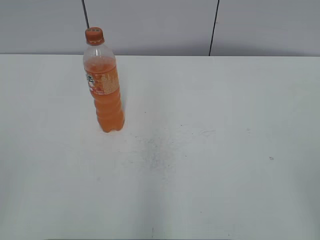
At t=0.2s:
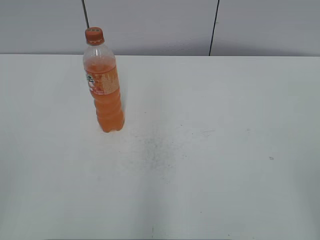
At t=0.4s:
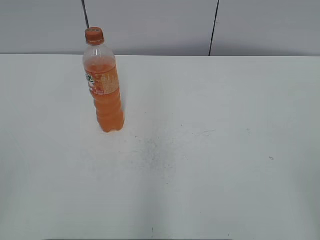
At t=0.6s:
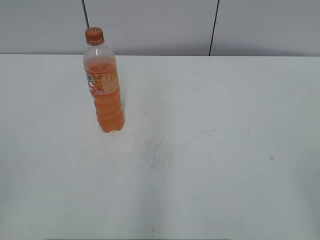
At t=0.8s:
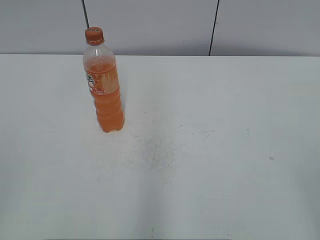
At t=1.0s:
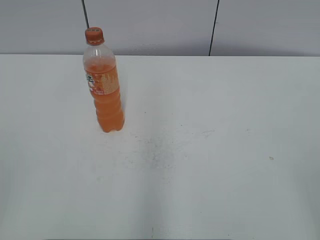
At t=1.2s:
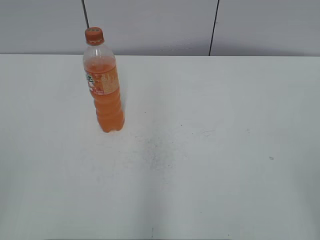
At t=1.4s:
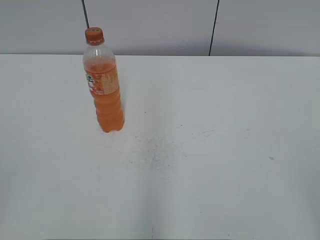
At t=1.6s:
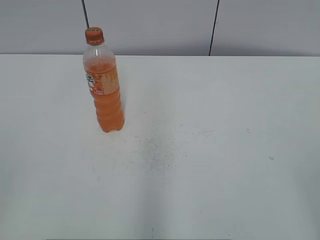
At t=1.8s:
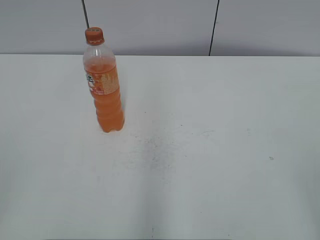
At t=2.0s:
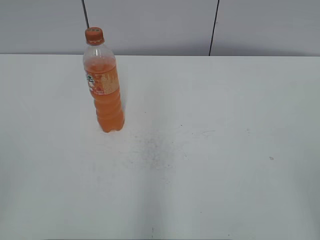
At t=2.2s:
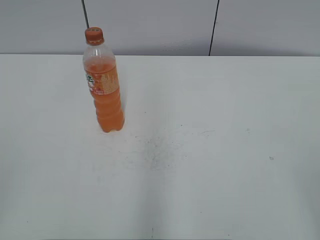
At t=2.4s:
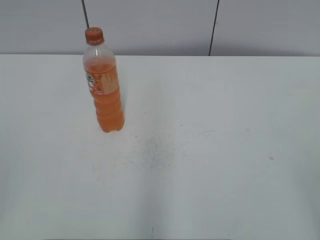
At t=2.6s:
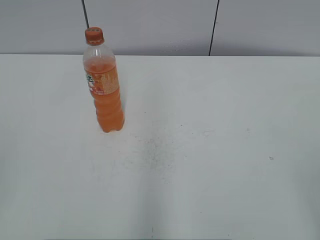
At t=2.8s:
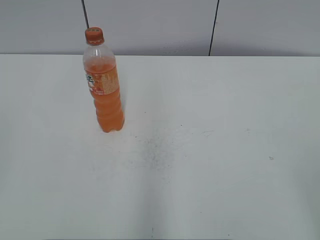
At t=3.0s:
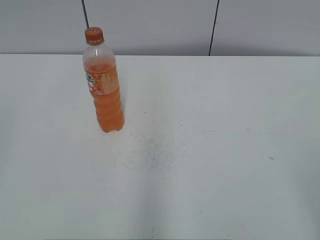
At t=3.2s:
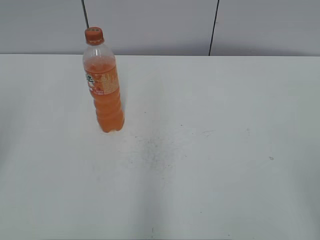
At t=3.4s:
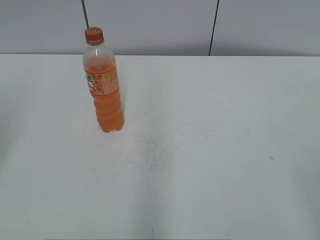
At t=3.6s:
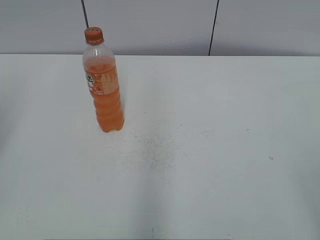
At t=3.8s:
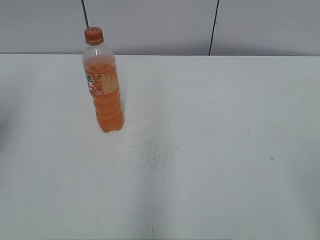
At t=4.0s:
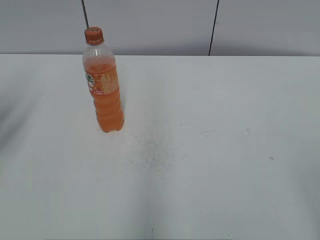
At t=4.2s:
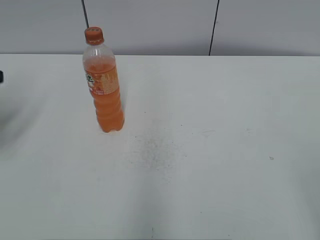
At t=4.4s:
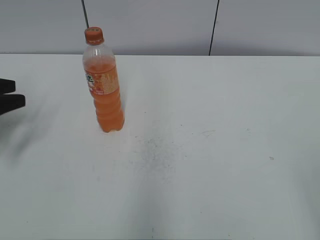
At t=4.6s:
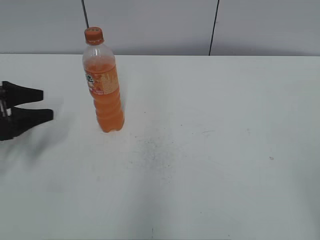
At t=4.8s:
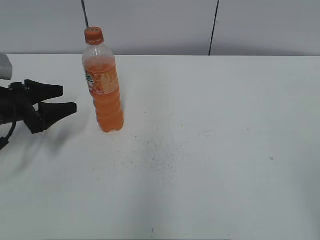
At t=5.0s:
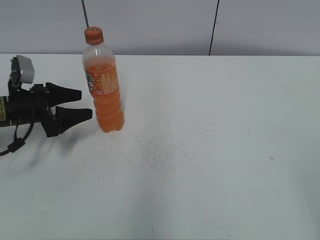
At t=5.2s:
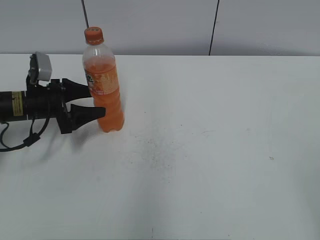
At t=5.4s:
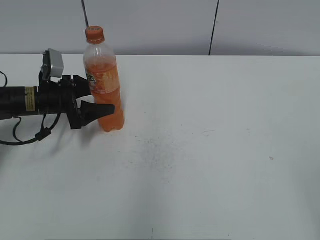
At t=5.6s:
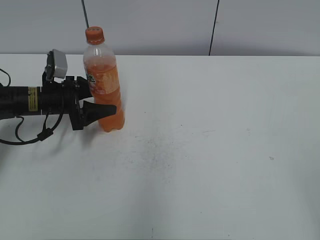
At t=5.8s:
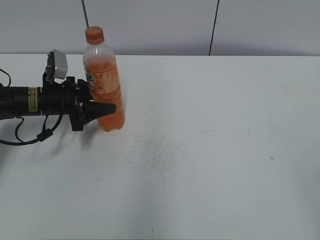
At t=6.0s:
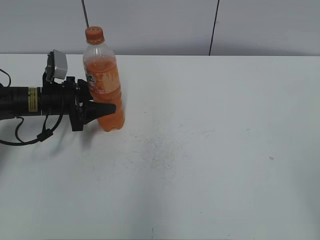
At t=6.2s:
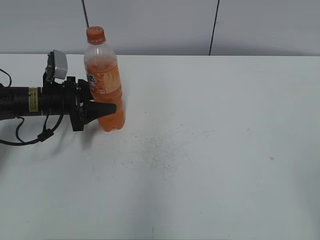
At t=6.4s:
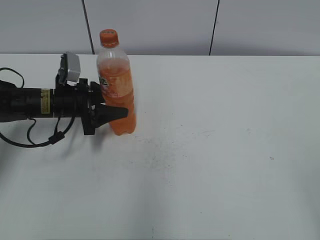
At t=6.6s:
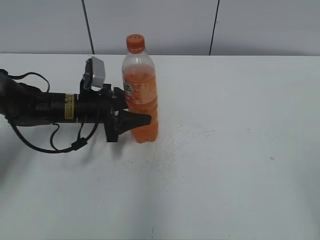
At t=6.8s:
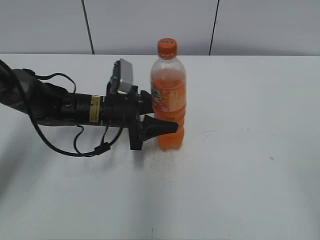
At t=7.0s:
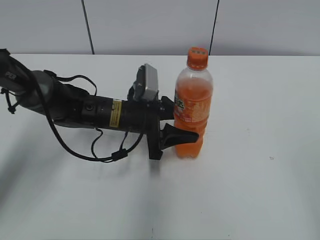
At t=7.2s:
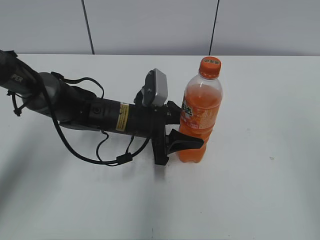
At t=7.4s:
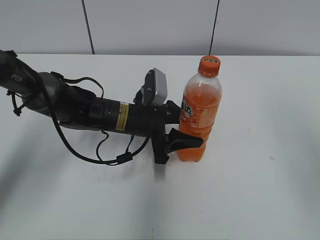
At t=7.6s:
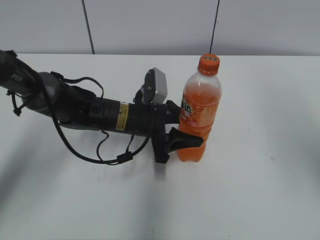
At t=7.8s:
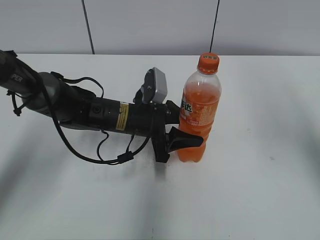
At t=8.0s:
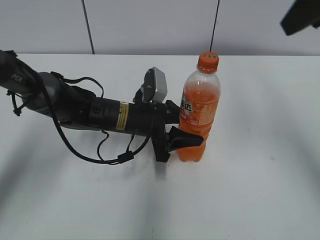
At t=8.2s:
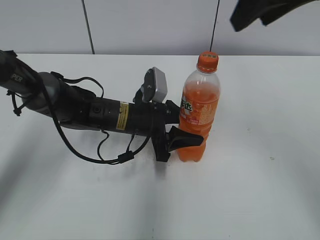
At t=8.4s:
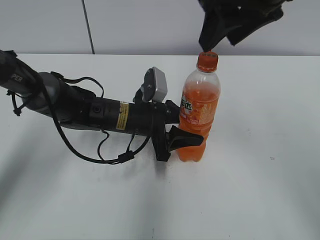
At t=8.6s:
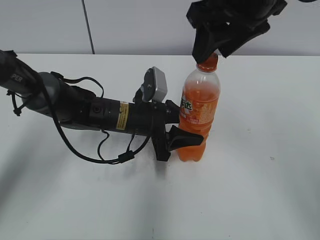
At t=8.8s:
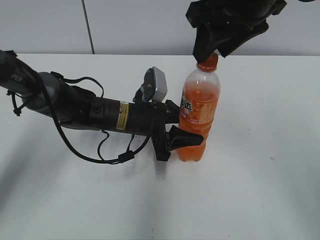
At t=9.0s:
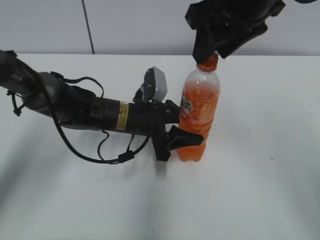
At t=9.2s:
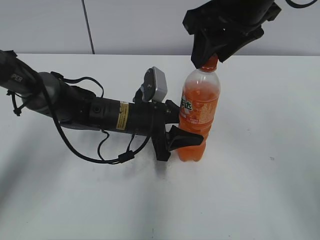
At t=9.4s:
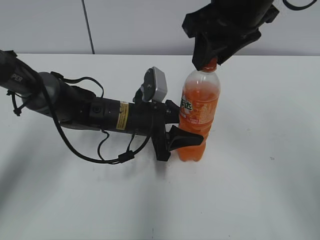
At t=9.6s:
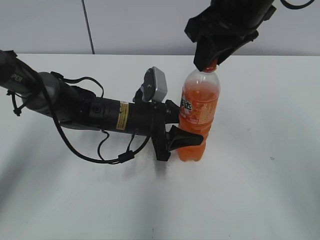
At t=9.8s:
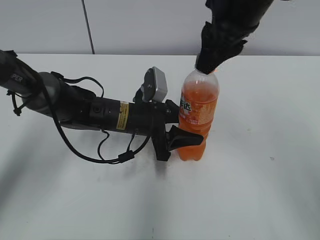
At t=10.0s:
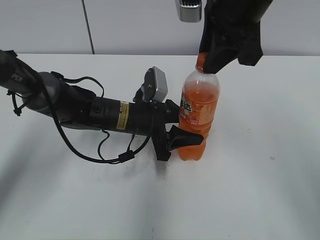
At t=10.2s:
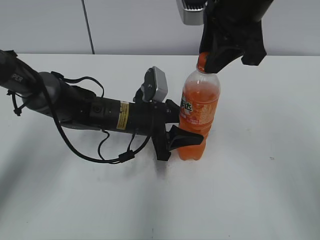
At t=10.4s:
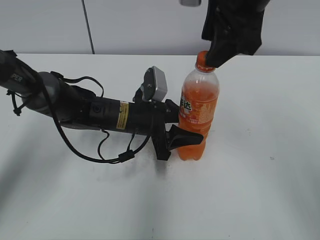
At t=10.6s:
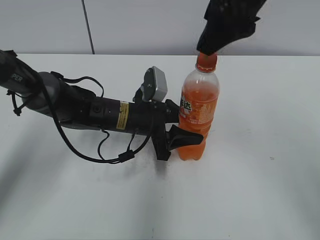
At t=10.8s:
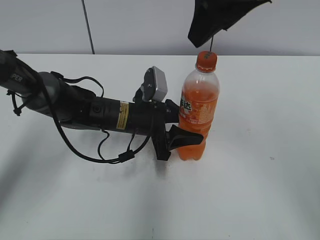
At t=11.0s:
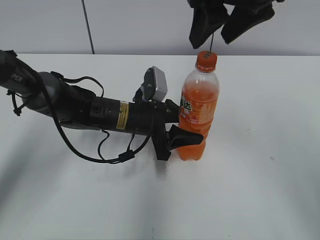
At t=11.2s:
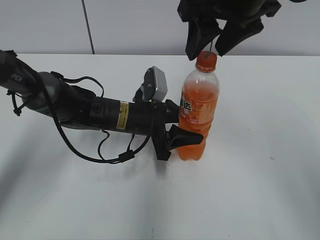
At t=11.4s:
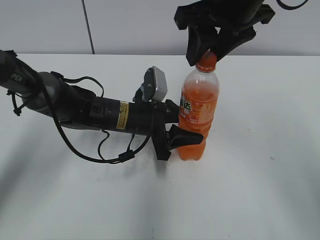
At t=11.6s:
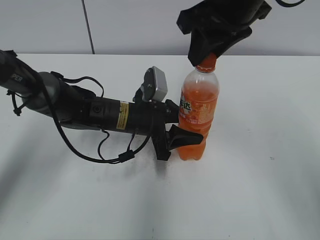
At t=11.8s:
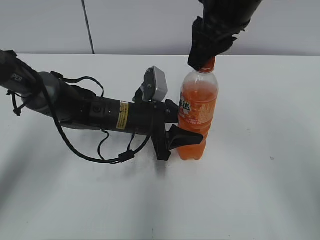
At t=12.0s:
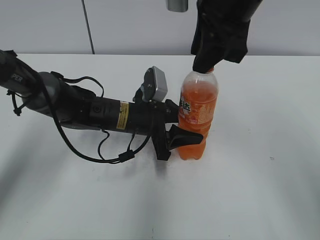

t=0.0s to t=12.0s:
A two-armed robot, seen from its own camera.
Step, t=0.0s to t=5.6s: Grab the Mirinda with the left hand.
Step, t=5.8s to t=7.0s: Move the Mirinda from left to right.
t=3.0s to t=4.4s: The left gripper is displaced forward and downward by about 30 cm, and opens its fingers.
t=4.4s to t=6.0s: The left gripper goes about 20 cm to the right, forward and downward, and opens and closes again.
t=6.0s to t=7.6s: The left gripper travels to the right by about 20 cm. Meanwhile the right gripper moves forward and upward, approximately 20 cm, and closes up.
t=7.6s to t=9.0s: The right gripper heads to the left and forward, covering about 20 cm.
t=9.0s to t=10.4s: The right gripper closes and opens again.
t=10.4s to t=12.0s: The right gripper closes.

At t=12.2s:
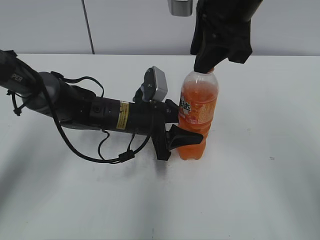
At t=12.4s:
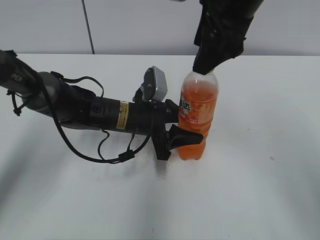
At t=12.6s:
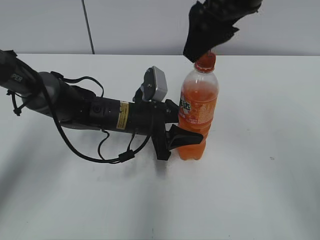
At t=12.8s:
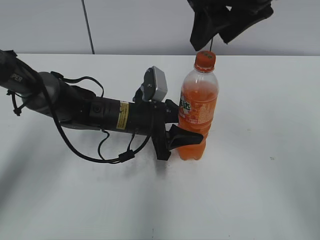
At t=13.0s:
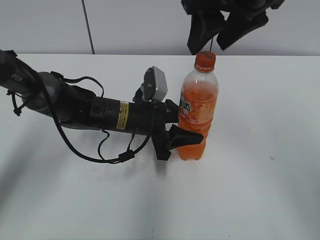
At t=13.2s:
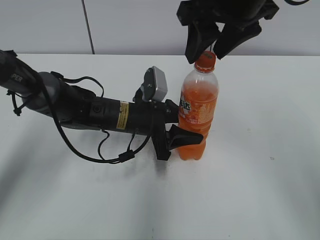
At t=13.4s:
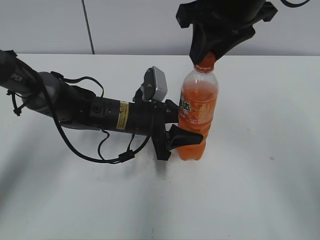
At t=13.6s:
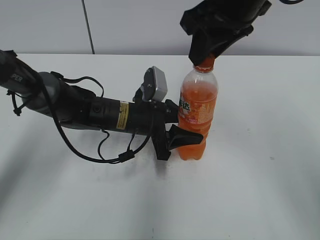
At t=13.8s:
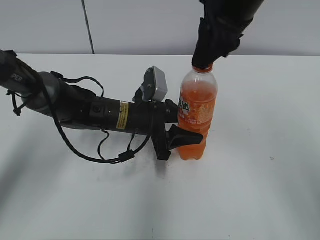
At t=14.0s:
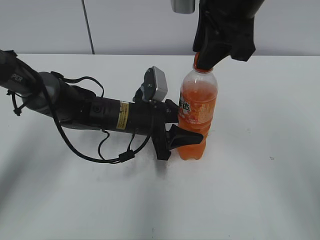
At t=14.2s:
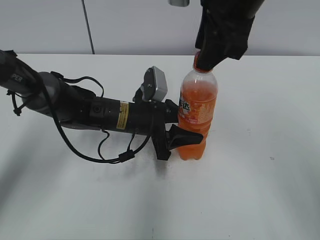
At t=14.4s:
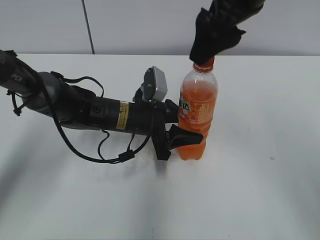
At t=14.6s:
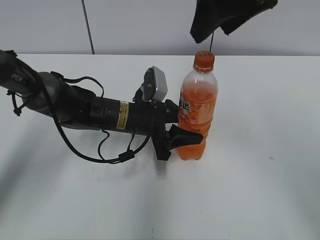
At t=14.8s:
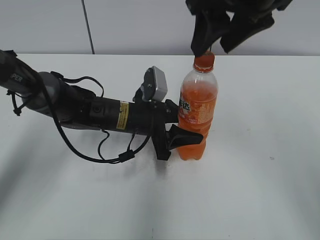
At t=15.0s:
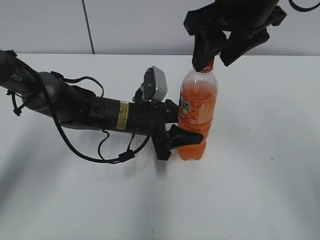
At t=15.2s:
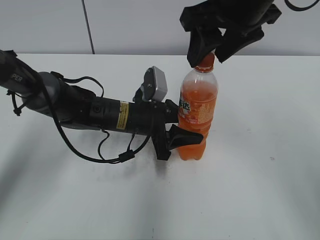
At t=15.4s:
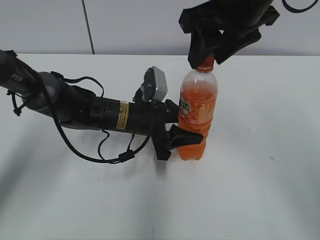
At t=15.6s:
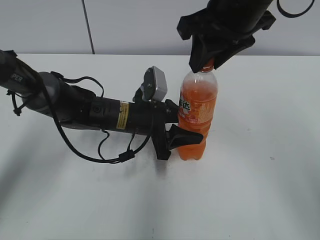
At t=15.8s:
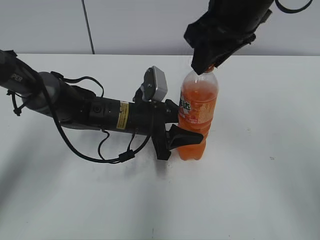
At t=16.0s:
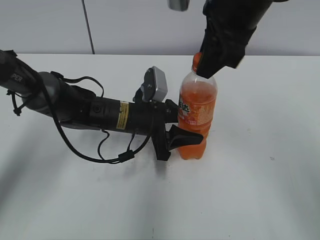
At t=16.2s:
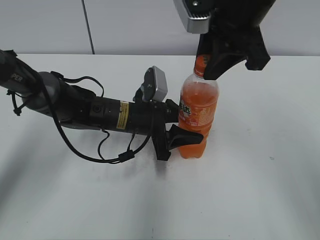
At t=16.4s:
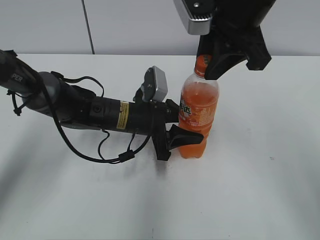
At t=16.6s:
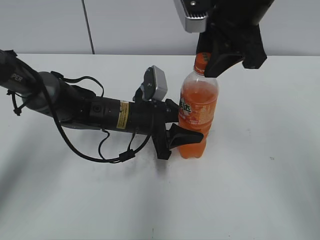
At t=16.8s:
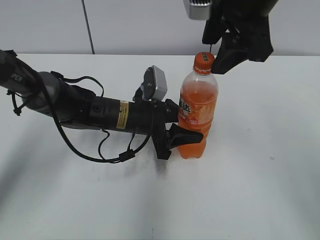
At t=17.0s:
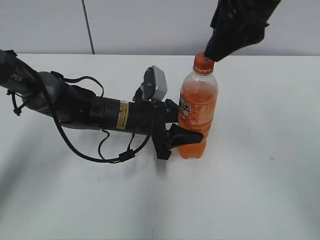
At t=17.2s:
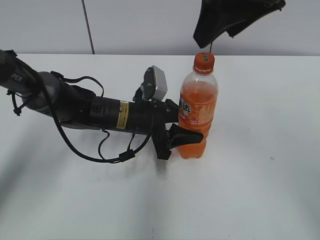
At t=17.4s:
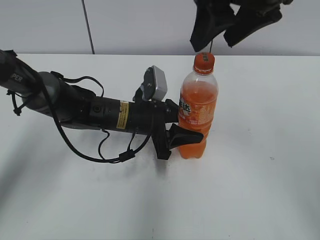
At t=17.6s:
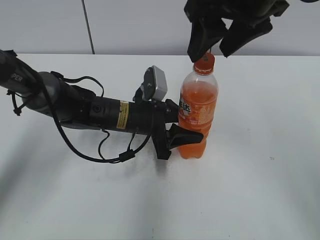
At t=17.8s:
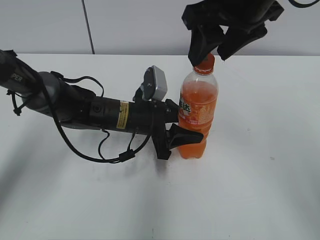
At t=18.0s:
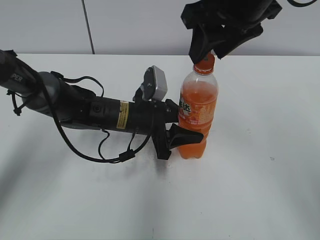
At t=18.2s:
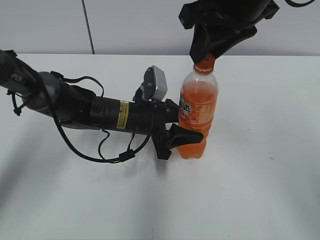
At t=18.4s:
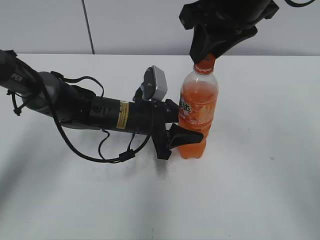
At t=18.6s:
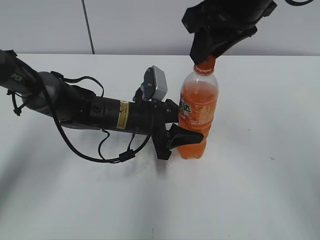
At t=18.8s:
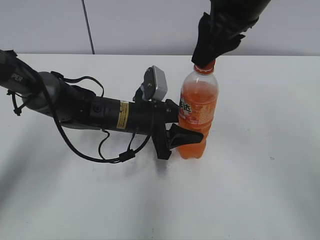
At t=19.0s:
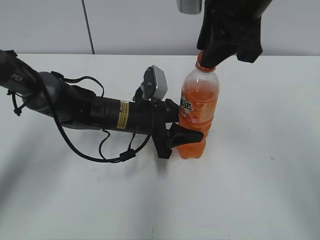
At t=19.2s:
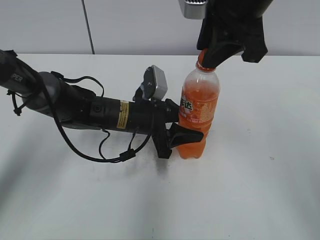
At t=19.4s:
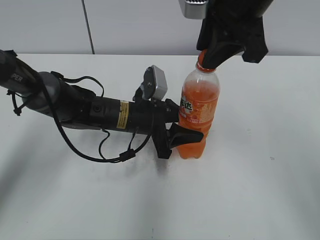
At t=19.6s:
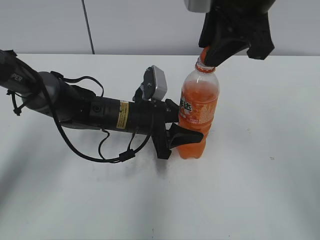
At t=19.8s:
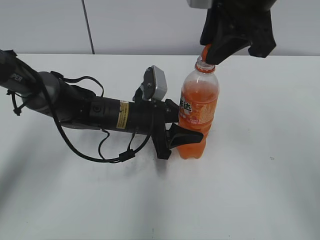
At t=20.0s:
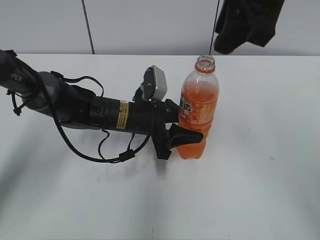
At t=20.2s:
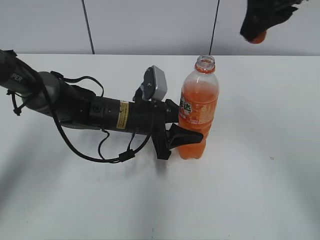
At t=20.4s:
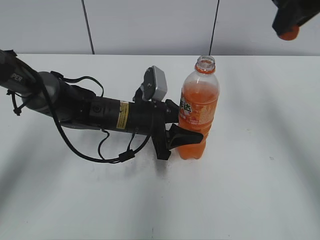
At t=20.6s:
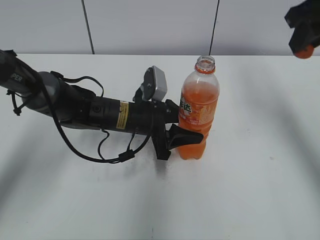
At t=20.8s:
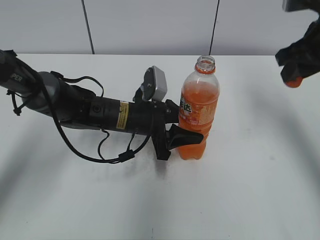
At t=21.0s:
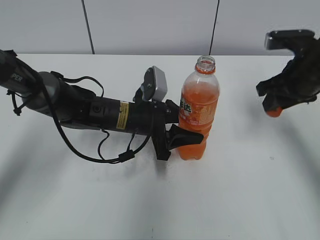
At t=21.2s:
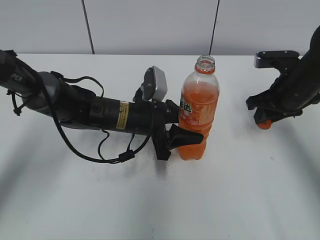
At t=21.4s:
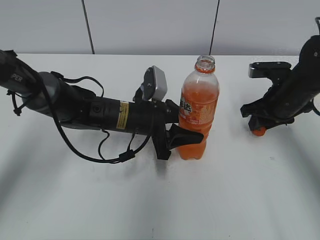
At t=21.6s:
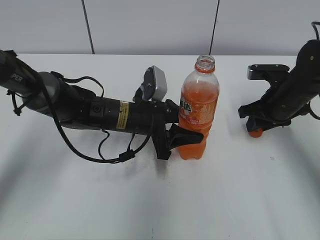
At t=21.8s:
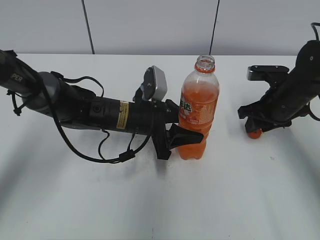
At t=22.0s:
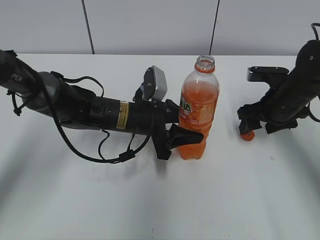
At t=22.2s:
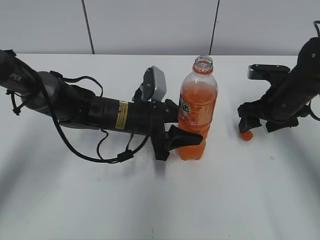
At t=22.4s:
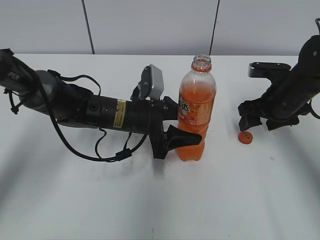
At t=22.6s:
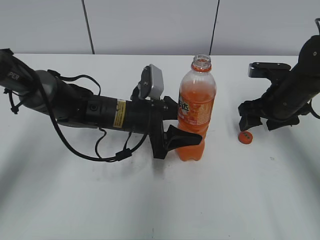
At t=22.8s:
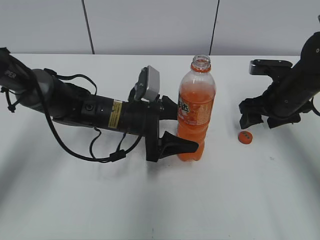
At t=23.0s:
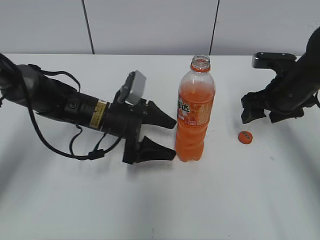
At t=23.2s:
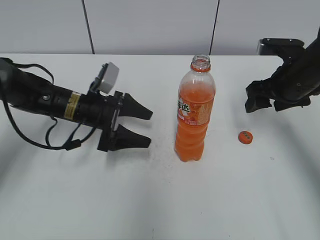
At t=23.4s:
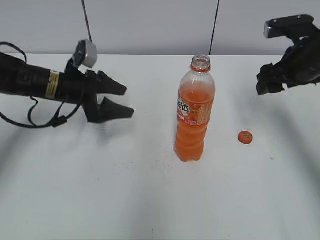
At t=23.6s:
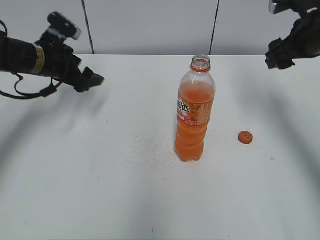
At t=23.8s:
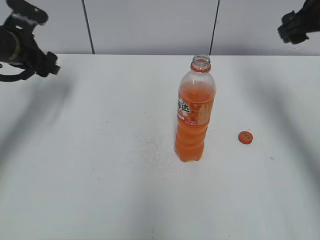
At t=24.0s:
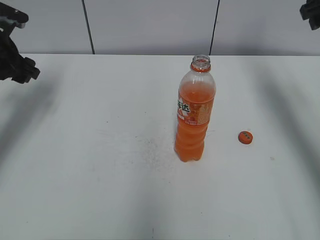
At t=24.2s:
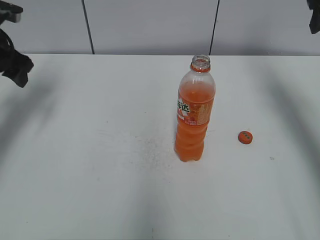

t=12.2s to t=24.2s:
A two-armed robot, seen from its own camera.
Step, t=20.0s to t=22.0s: Place the bottle cap on the right.
t=12.2s to t=13.8s: The right gripper opens, then closes again.
t=13.8s to t=15.2s: The right gripper opens its fingers.
t=16.6s to t=18.2s: The right gripper opens, then closes again.
t=19.8s to t=21.2s: The right gripper goes some 25 cm downward and to the right.
t=21.2s to t=22.6s: The left gripper opens; the right gripper opens up.
t=22.6s to t=24.2s: The right gripper goes approximately 20 cm upward. Meanwhile the left gripper goes roughly 30 cm to the left and upward, and opens its fingers.
